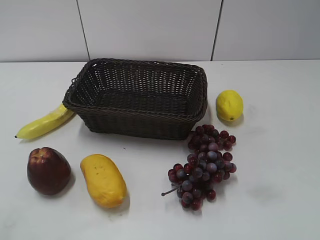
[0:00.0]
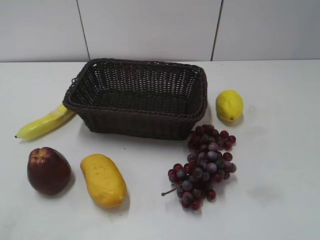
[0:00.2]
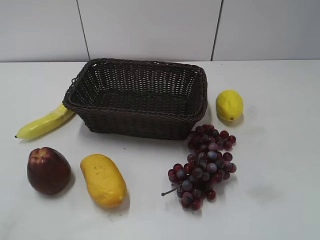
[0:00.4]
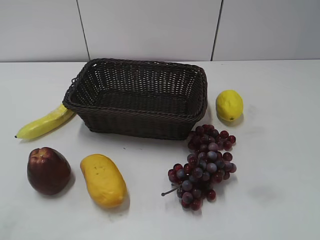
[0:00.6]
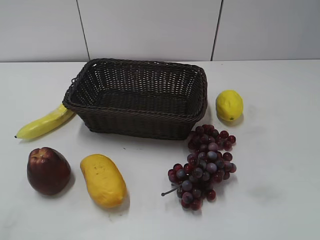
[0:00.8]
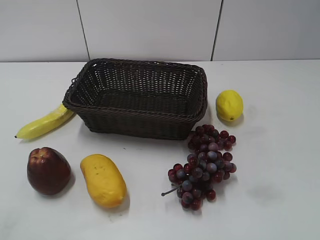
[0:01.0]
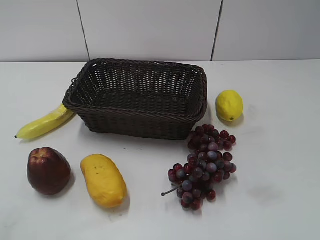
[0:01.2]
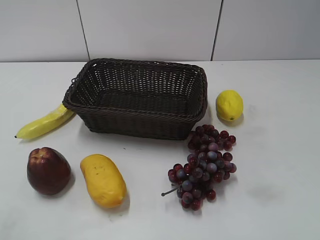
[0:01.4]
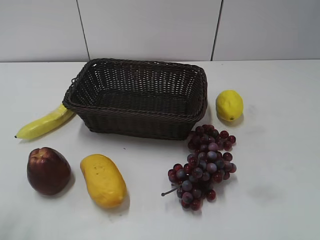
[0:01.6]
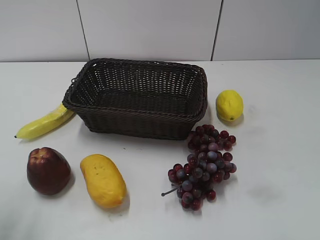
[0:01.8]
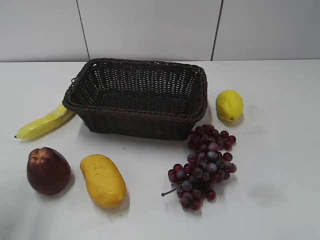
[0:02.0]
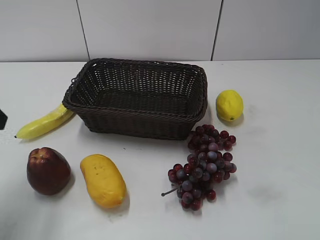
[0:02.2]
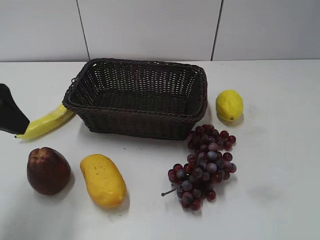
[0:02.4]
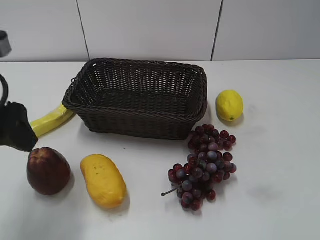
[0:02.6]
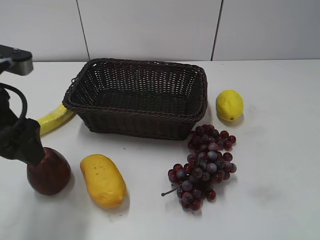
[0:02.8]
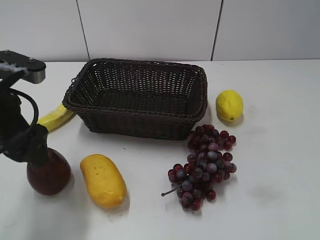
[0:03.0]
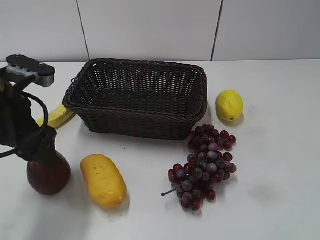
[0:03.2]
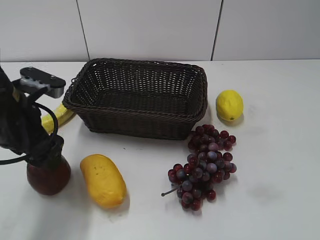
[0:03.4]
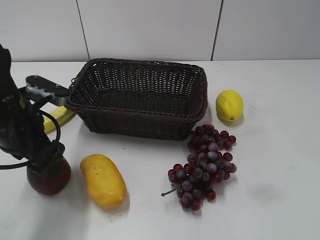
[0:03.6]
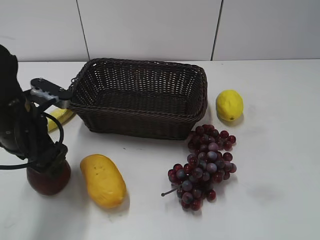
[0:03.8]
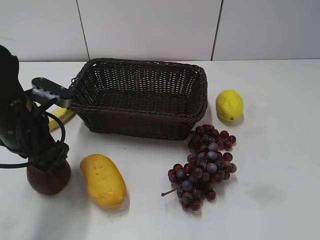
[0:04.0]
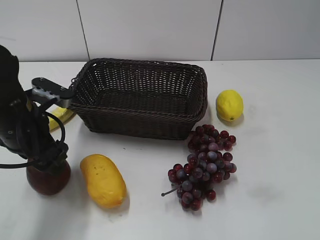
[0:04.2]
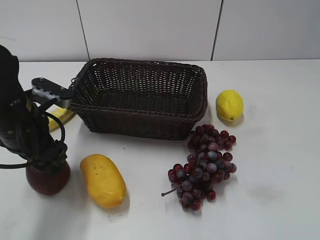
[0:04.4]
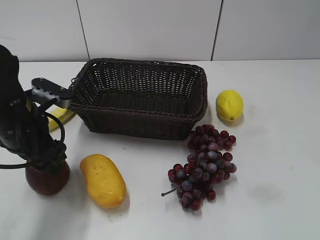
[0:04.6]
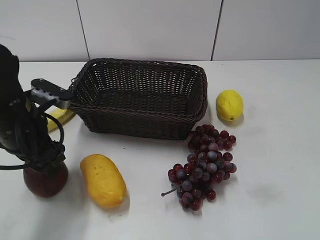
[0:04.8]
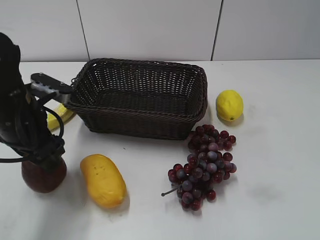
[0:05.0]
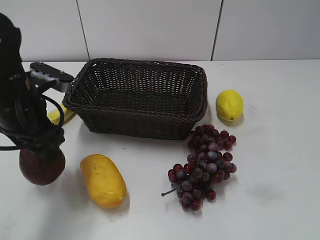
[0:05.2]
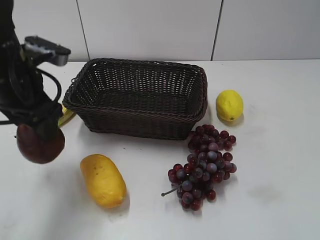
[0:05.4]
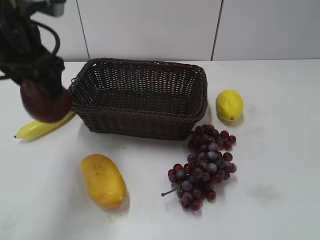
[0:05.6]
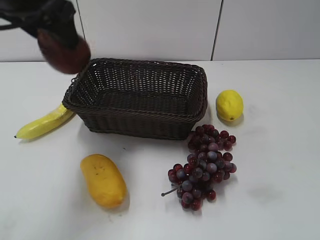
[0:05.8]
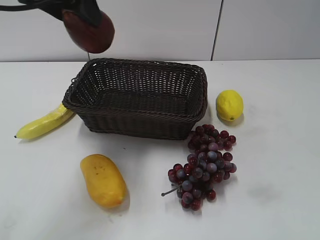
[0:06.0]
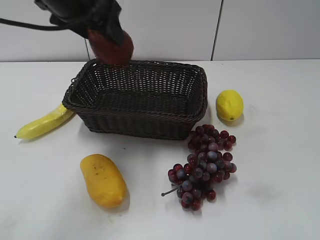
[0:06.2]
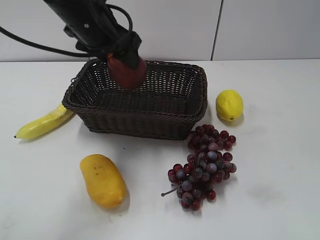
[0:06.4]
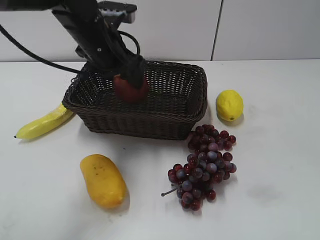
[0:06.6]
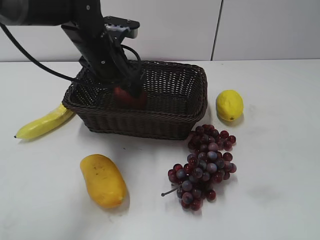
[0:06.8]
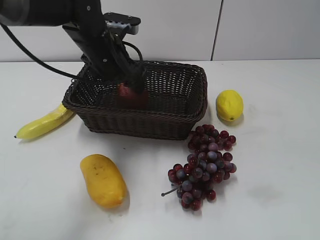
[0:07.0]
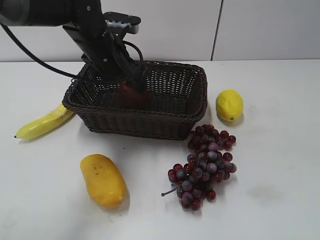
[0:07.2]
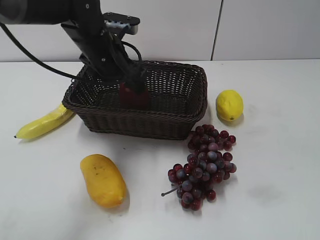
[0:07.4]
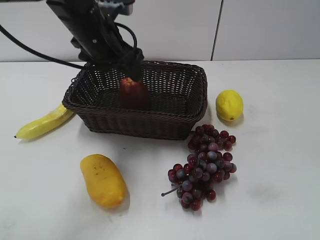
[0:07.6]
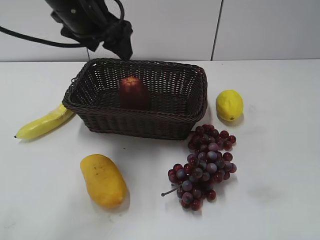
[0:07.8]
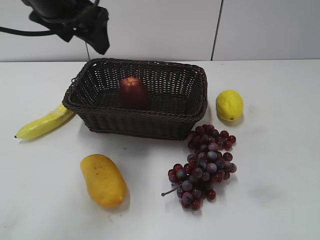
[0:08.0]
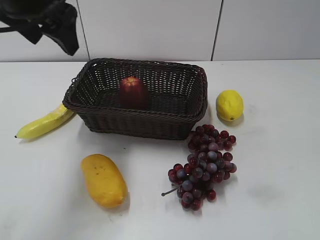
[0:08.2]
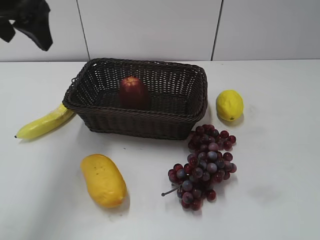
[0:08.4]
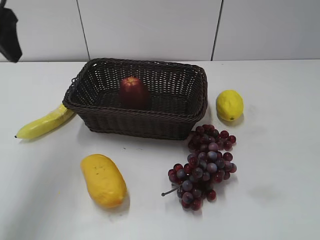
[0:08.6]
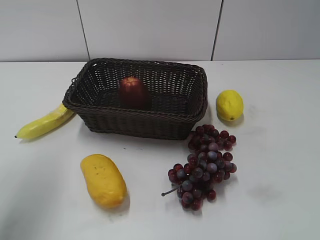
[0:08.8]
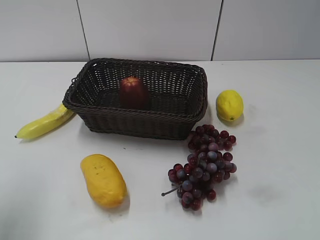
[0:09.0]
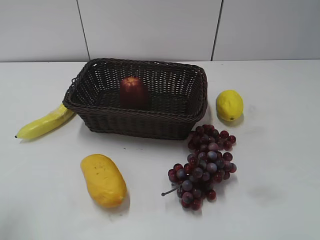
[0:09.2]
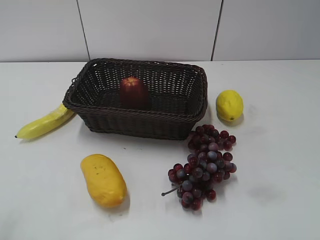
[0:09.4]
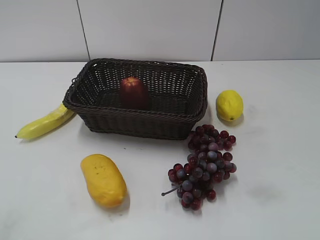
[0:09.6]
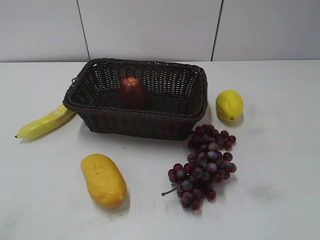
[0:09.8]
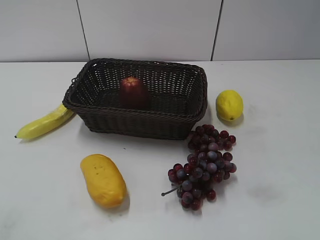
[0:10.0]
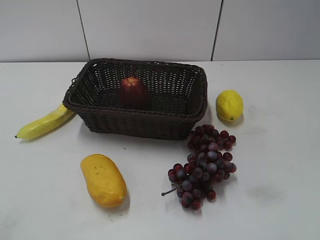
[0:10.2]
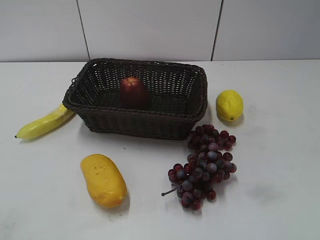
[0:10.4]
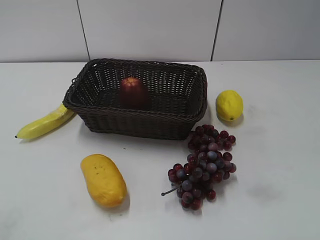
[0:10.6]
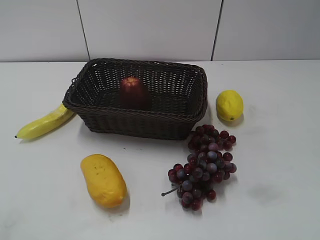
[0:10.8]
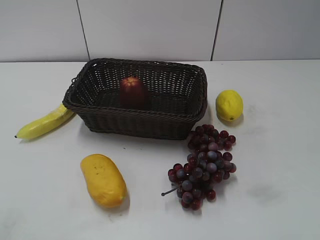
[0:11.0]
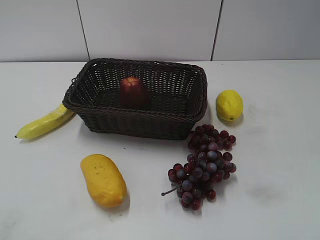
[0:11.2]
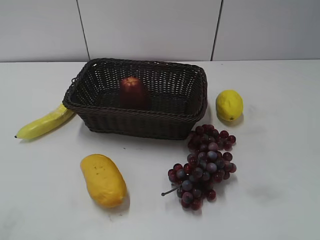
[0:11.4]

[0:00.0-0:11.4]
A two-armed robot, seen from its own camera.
Step, 0:02.2 to 0:04.6: Grasp the apple with left gripper.
Step, 0:04.8 to 0:07.0: Place the apple in the basket with left gripper.
0:01.4 to 0:02.8: The left gripper shifts some 20 cm forward and to the right.
0:02.8 to 0:04.2: The left gripper is displaced downward by roughly 10 cm.
0:04.2 to 0:05.6: The left gripper is displaced upward by about 15 cm.
0:05.6 to 0:07.2: The left gripper shifts about 15 cm downward, forward and to the right.
0:07.2 to 0:08.6: The left gripper heads to the left, upward and backward, covering some 25 cm.
0:08.6 to 0:10.0: The left gripper heads backward, covering about 30 cm.

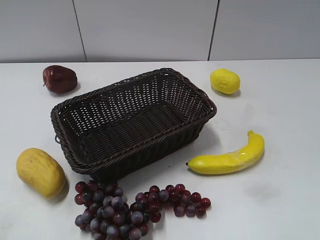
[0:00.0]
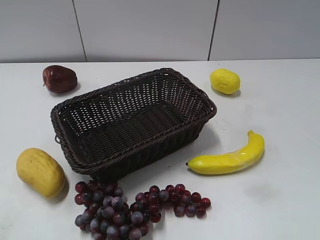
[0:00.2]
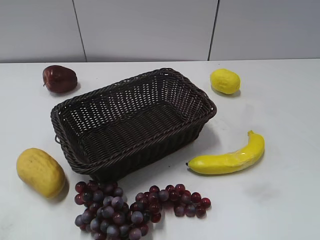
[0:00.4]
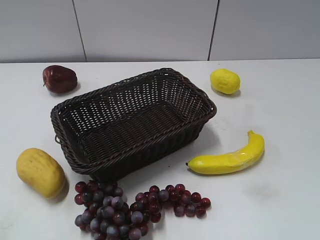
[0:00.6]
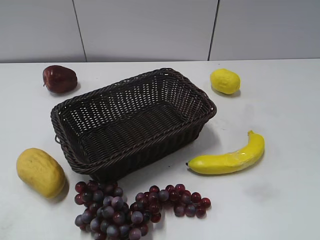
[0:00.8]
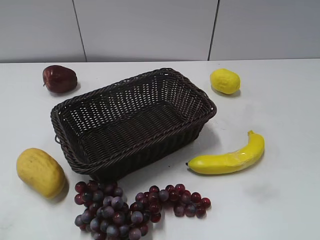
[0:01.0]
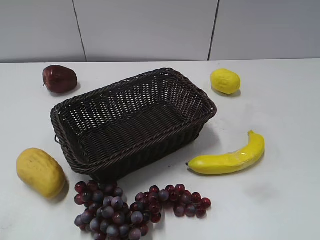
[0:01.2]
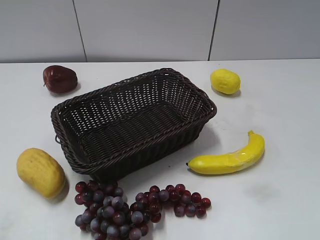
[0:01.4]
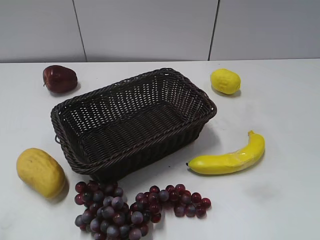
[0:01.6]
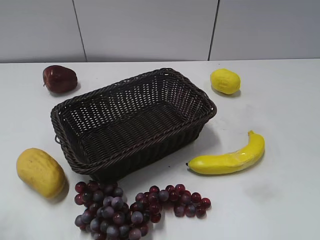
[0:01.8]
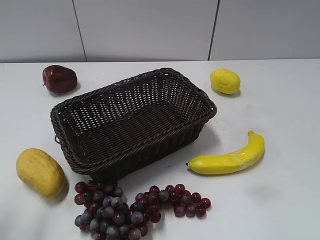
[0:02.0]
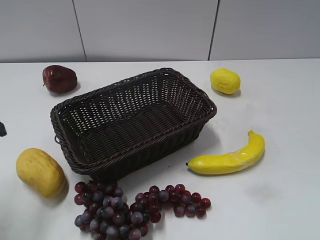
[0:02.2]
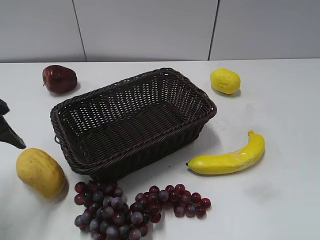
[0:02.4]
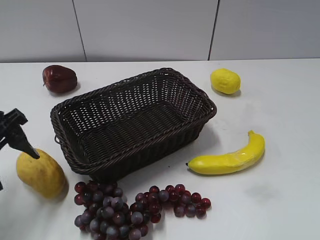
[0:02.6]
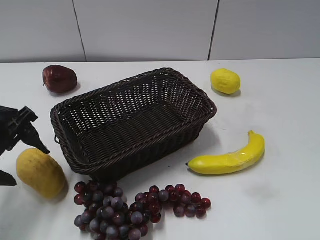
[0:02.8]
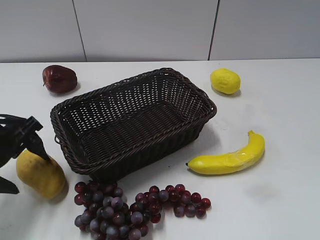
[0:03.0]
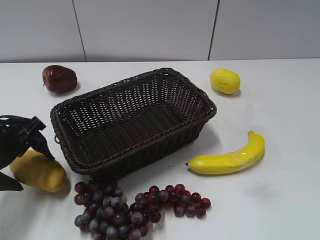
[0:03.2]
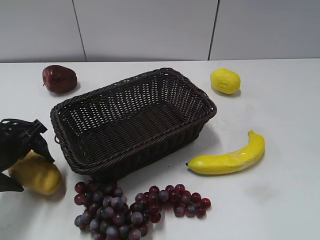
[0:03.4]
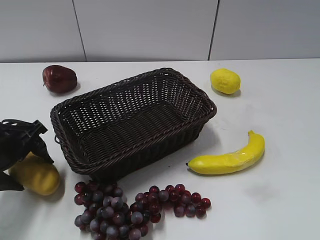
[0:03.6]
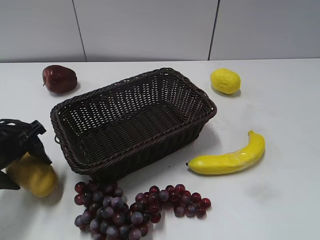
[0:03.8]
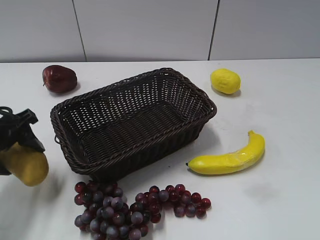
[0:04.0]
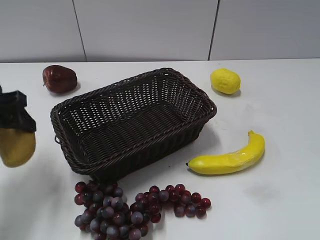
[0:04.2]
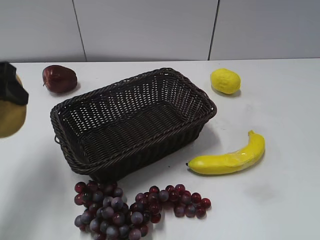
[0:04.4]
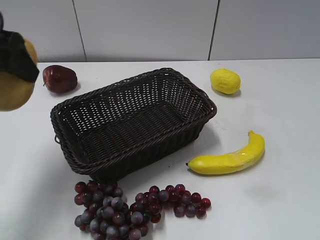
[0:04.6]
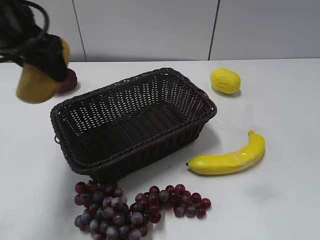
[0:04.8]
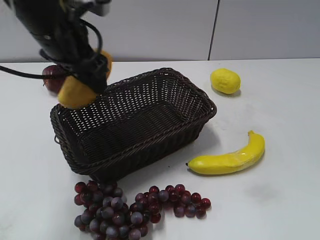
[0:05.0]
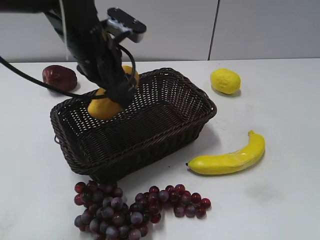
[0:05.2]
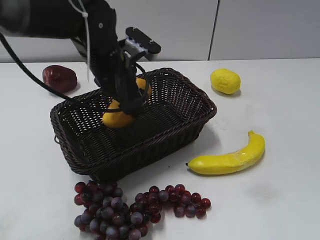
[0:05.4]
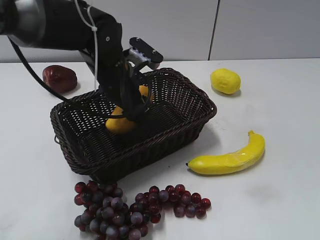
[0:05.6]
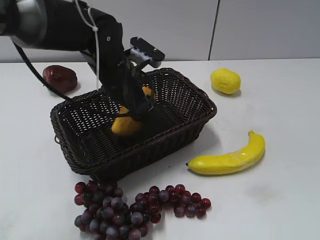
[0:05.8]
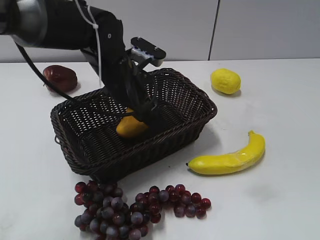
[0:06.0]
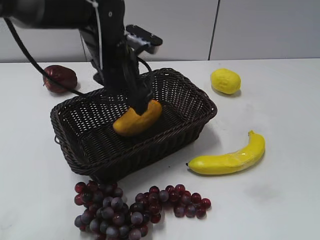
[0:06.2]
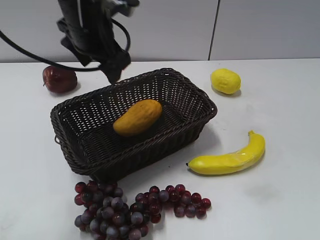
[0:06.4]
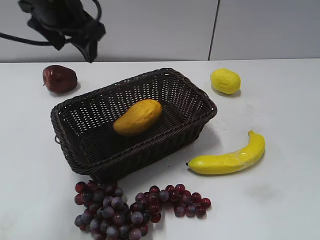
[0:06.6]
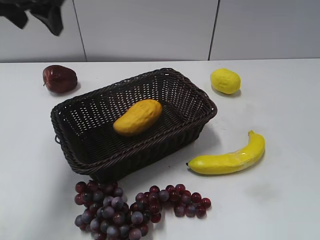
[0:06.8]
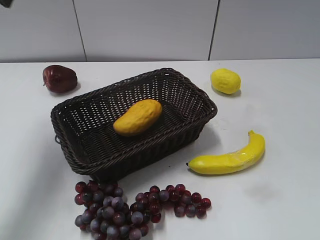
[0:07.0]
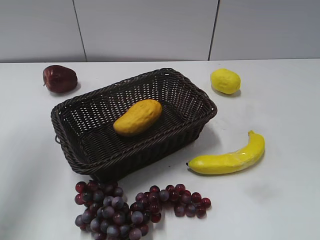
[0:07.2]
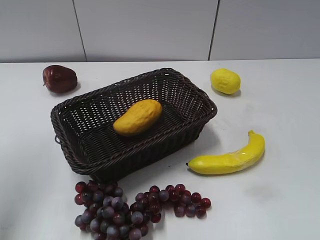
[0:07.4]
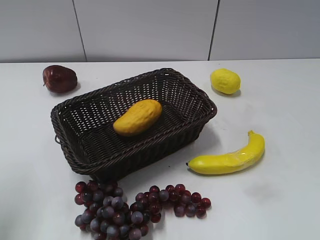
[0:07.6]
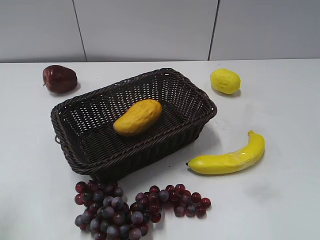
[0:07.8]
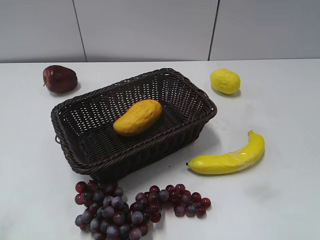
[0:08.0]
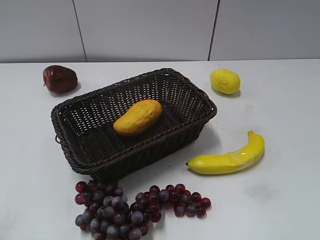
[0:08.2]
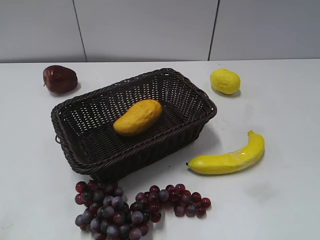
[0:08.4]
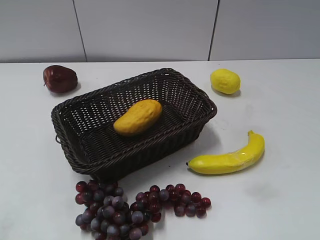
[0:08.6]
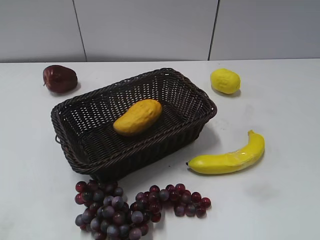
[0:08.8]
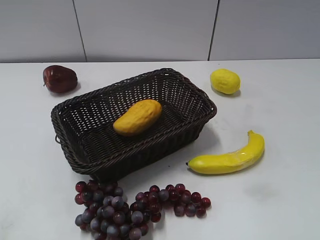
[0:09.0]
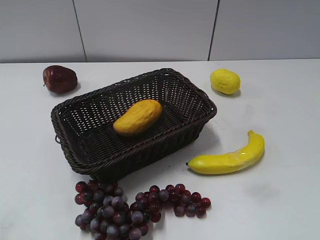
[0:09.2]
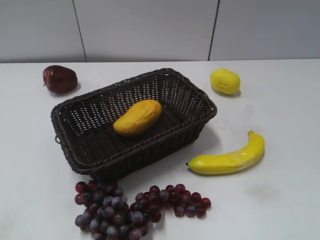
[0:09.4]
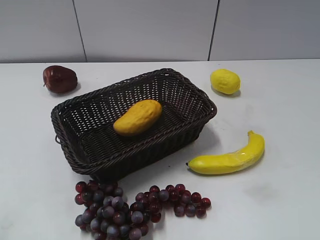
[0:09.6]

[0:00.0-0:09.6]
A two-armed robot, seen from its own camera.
Step, 0:02.2 to 0:03.6: Grasp the mango with left gripper.
Step, 0:03.8 to 0:05.8: Place the mango in the basket with left gripper.
0:01.6 to 0:03.2: The left gripper is displaced forward and downward by some 25 cm.
0:03.2 to 0:04.8: The left gripper is displaced upward and to the right by roughly 20 cm.
0:04.8 to 0:06.4: The left gripper moves to the right and forward, some 10 cm, and moves some 15 cm downward and comes back.
0:06.4 to 0:08.0: The left gripper goes about 35 cm backward and to the left.

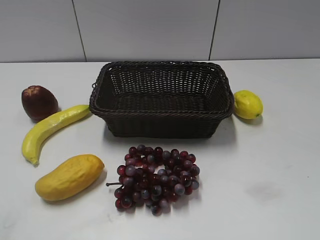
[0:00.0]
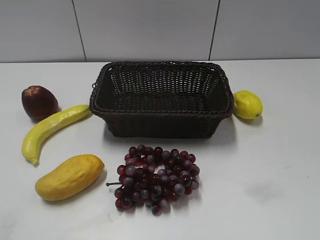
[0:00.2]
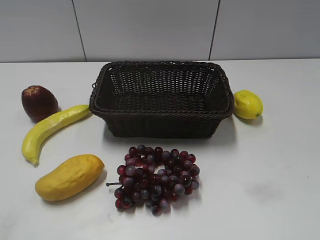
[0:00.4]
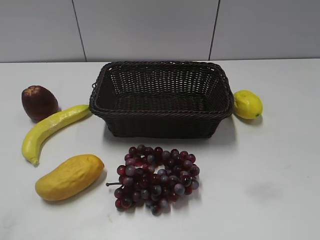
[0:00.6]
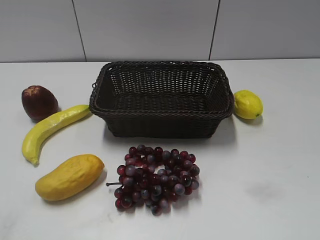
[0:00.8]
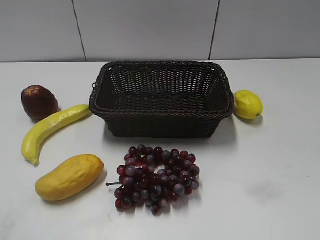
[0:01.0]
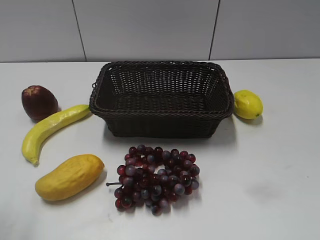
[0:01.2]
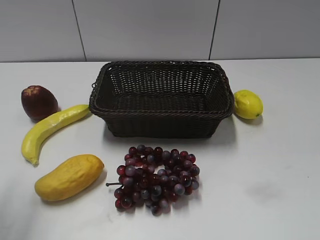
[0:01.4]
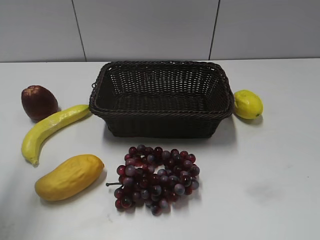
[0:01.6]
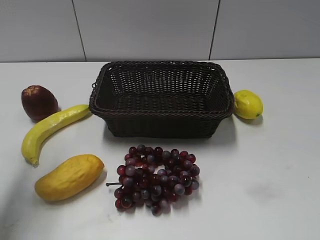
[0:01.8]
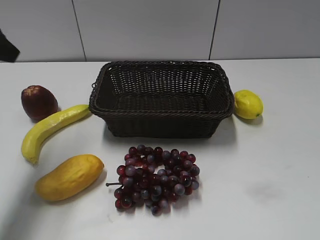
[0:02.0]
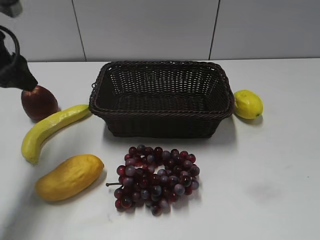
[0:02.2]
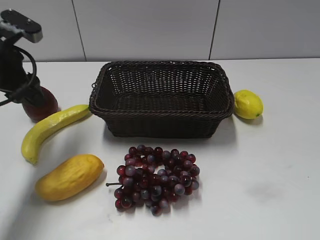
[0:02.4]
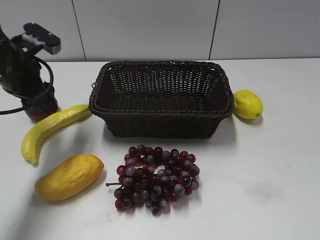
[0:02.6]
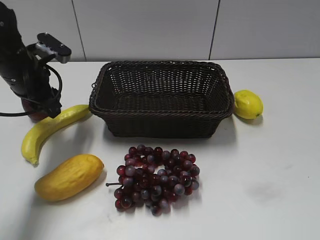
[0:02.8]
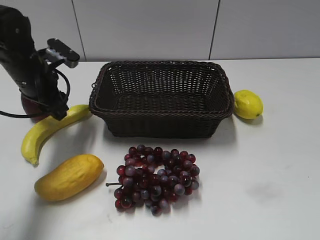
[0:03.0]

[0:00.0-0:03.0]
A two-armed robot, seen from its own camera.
0:01.6 to 0:03.0: The left gripper moves downward, forward and to the right, about 30 cm.
